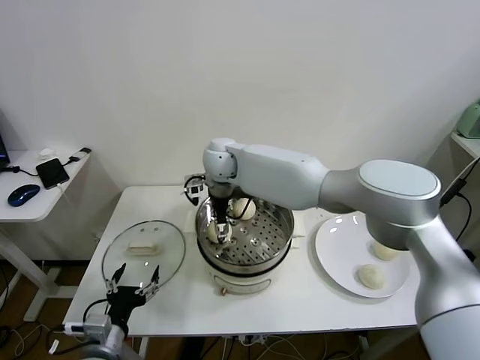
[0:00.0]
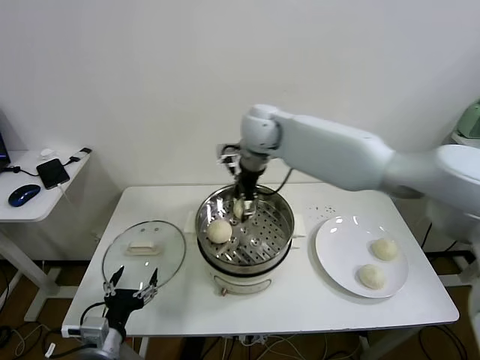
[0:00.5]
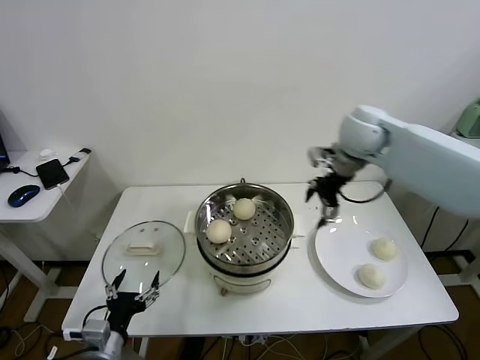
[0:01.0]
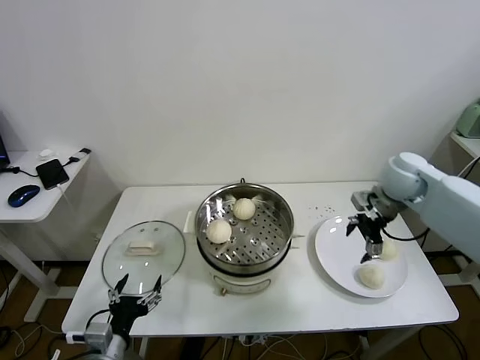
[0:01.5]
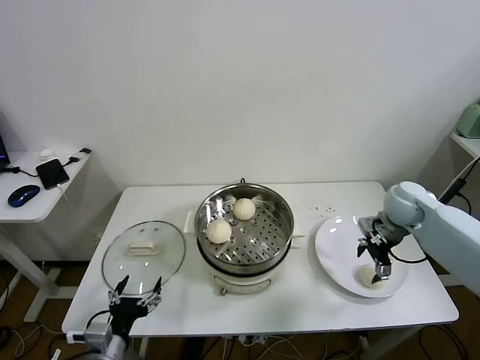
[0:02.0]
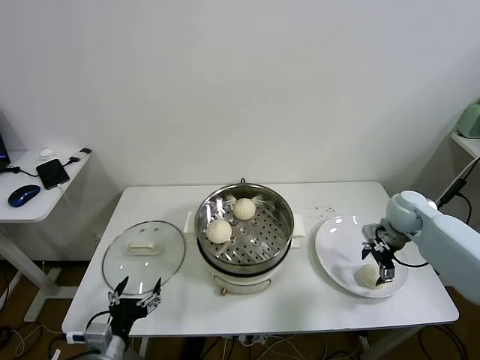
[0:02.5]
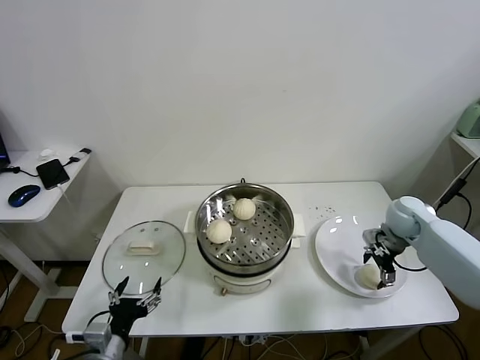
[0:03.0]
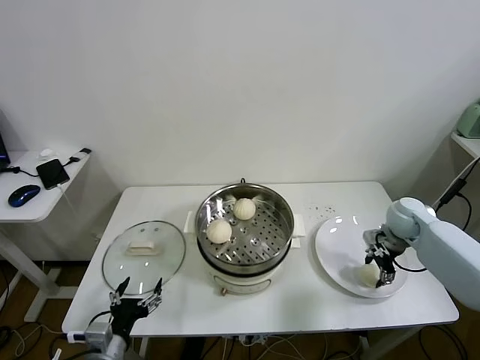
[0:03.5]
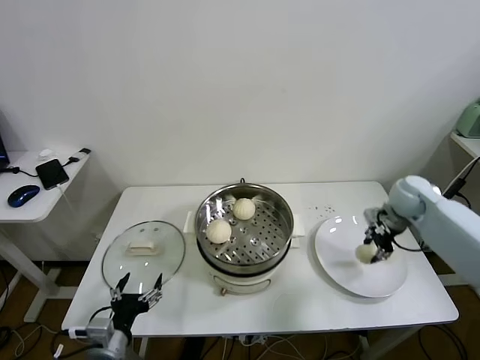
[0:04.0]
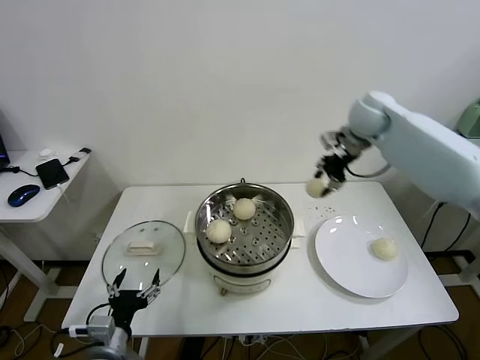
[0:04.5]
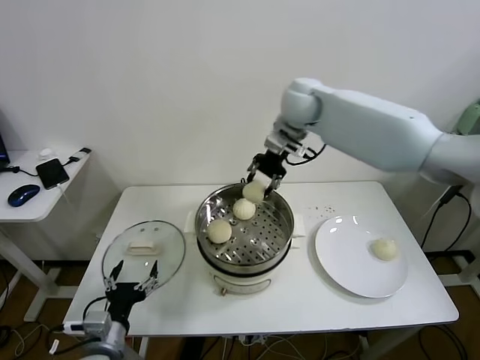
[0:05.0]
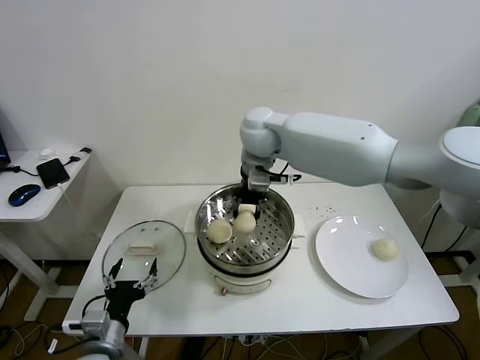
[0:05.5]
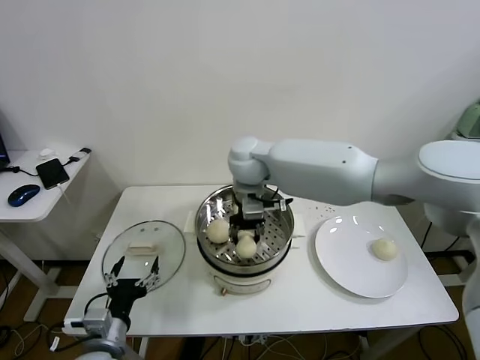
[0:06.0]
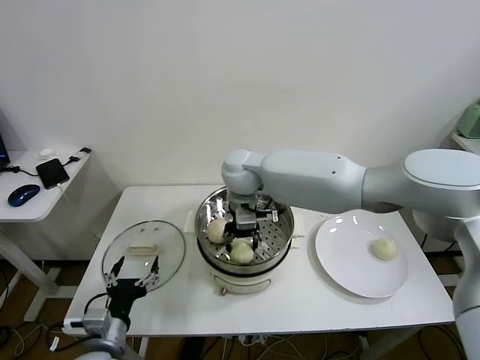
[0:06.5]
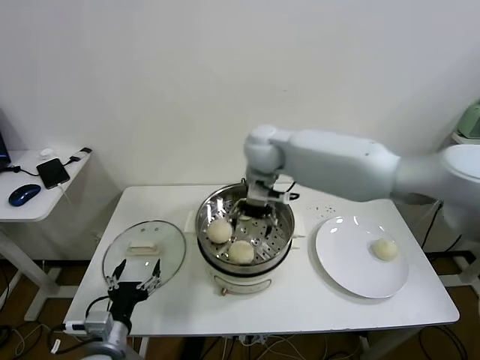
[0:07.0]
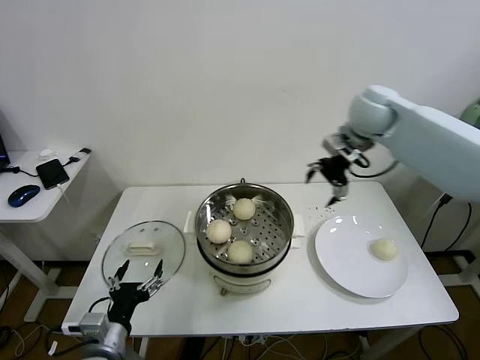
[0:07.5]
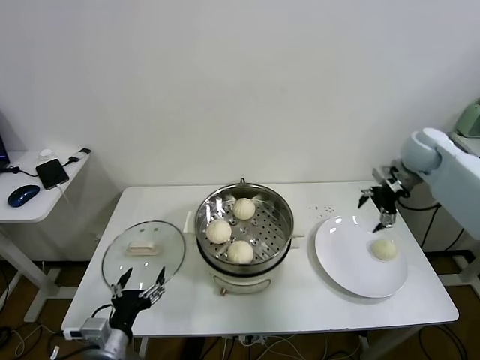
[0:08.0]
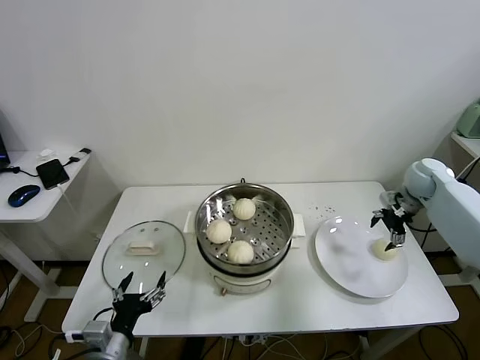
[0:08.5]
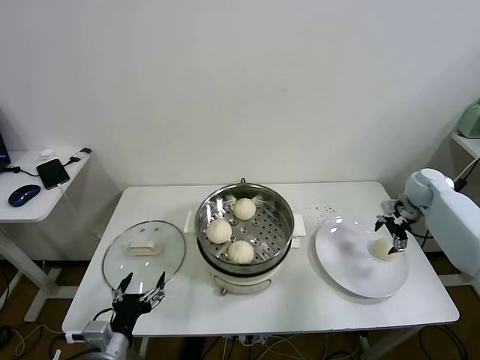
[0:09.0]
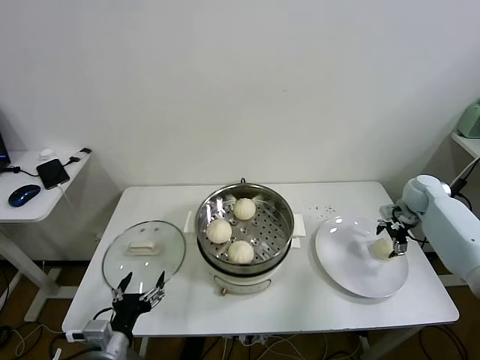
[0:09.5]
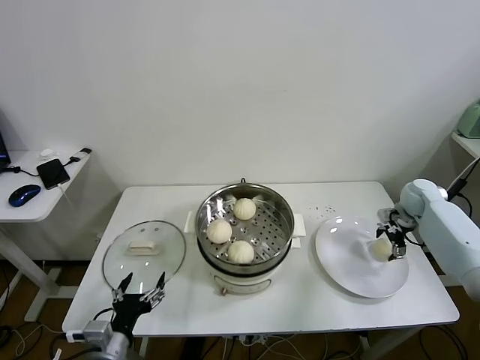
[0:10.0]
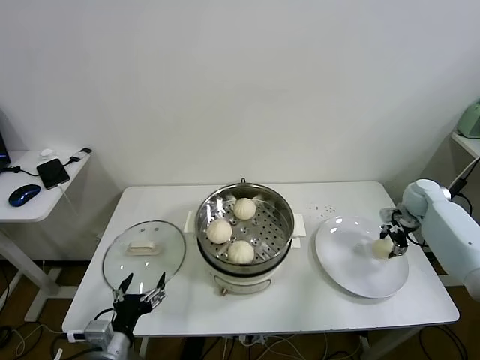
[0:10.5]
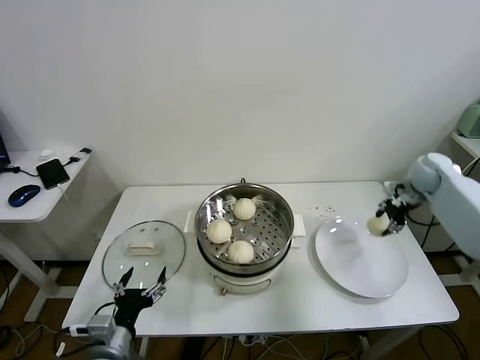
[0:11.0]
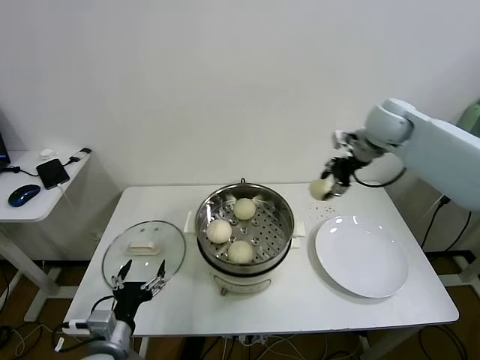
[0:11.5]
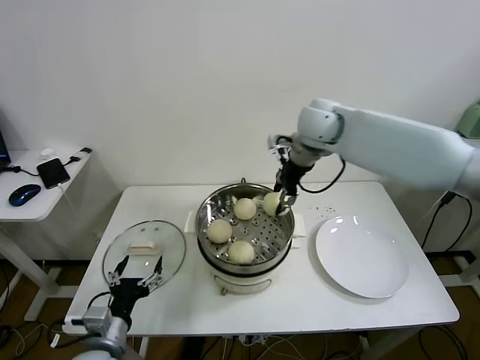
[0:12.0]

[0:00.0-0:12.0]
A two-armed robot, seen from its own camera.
Task of the whole recording: take steamed baozi put them in steamer.
Step, 0:00.5 to 0:03.0: Grasp the baozi in the plate with right gripper.
Step, 0:03.5 to 0:06.5: Place the baozi on the steamer with right gripper.
Step, 0:07.0 to 0:10.0: Grasp the baozi in the plate with right gripper.
0:00.0 to 0:02.0: The right gripper heads to the right, covering approximately 40 cm.
0:02.0 to 0:04.0: The right gripper travels downward and back again, some 5 cm each way, and closes its fingers.
0:04.0 to 0:06.0: The right gripper is displaced to the left by about 40 cm.
0:06.0 to 0:08.0: The right gripper travels to the right by approximately 40 cm, and opens its fingers.
0:08.0 to 0:10.0: The right gripper is displaced downward by some 15 cm.
0:10.0 to 0:12.0: The right gripper heads to the left and upward, covering approximately 40 cm, and closes its fingers.

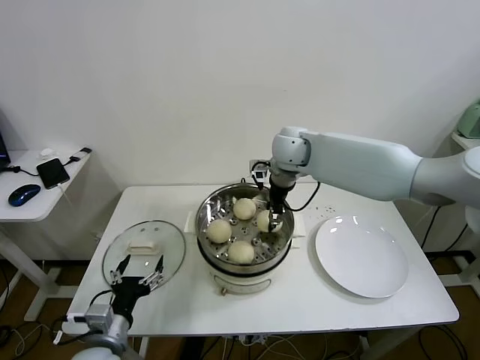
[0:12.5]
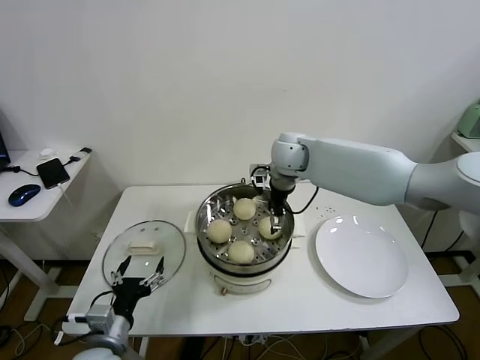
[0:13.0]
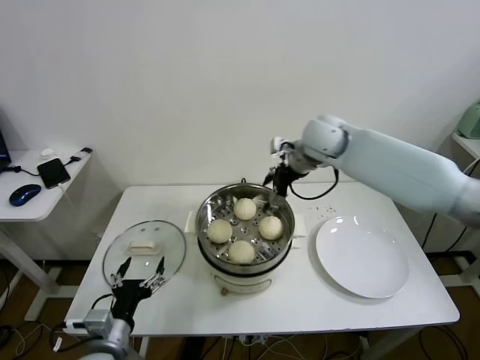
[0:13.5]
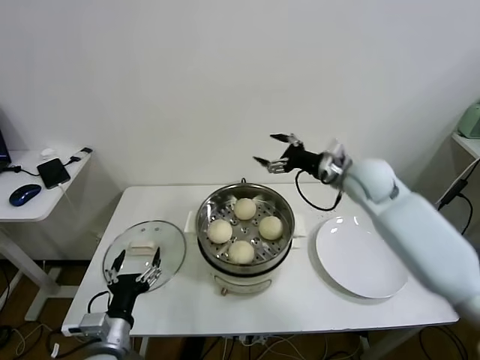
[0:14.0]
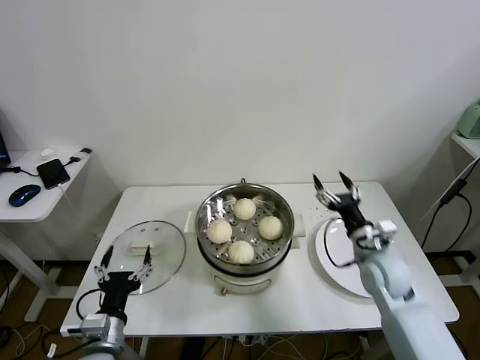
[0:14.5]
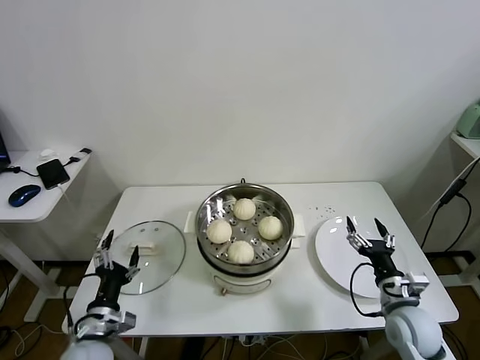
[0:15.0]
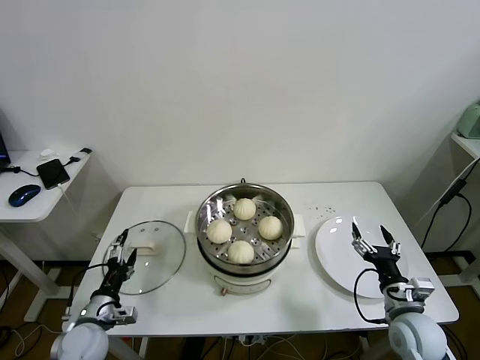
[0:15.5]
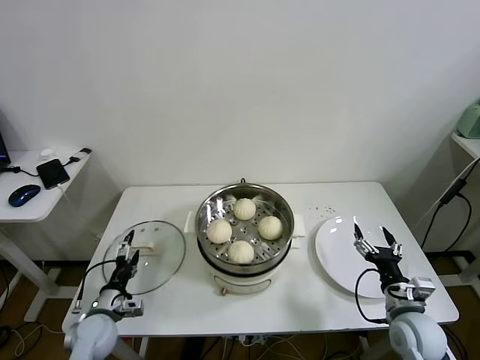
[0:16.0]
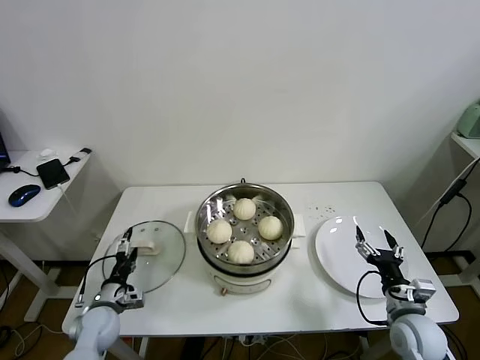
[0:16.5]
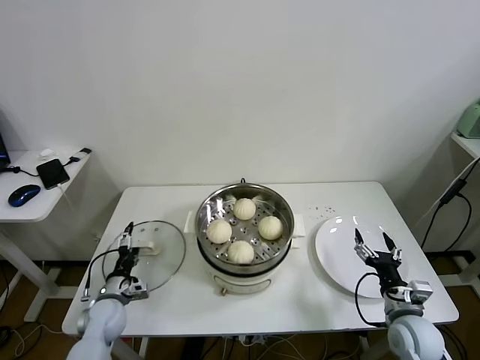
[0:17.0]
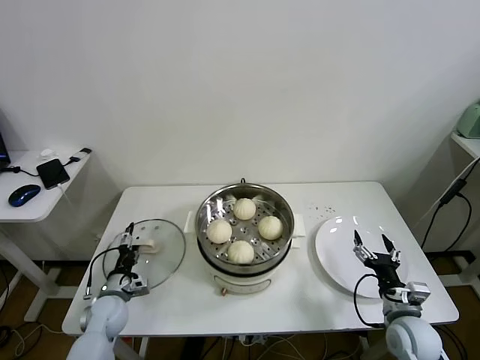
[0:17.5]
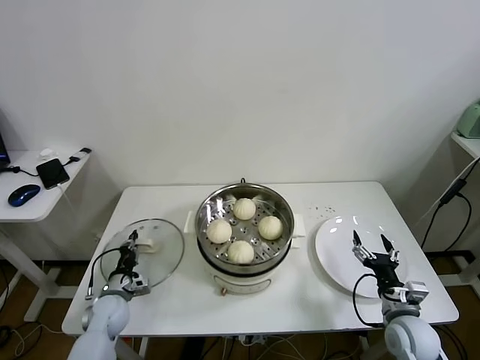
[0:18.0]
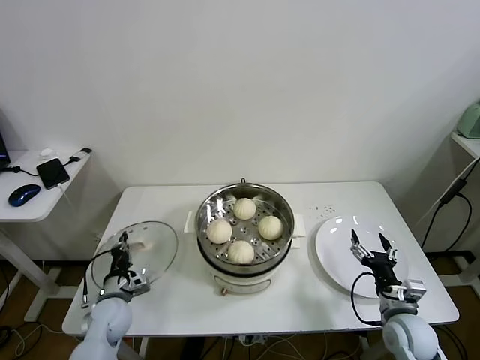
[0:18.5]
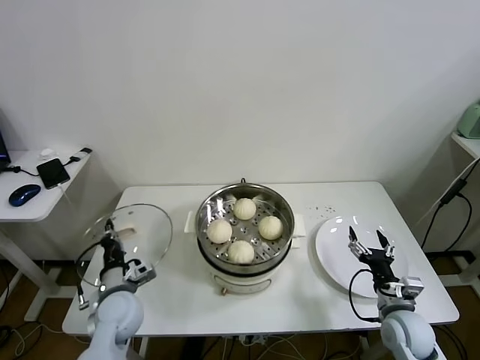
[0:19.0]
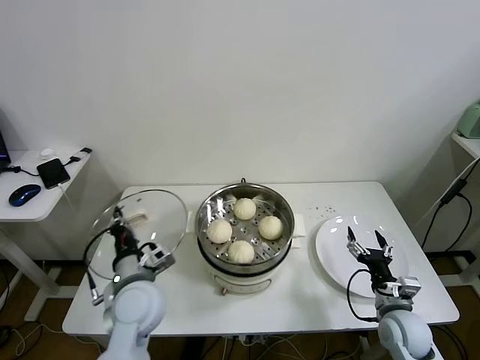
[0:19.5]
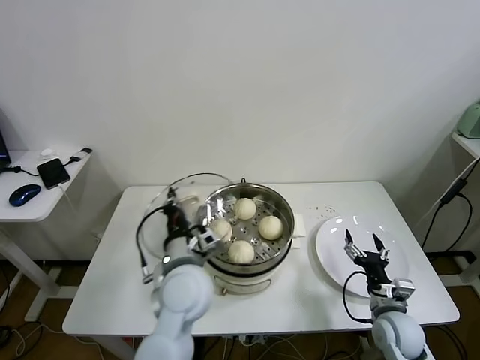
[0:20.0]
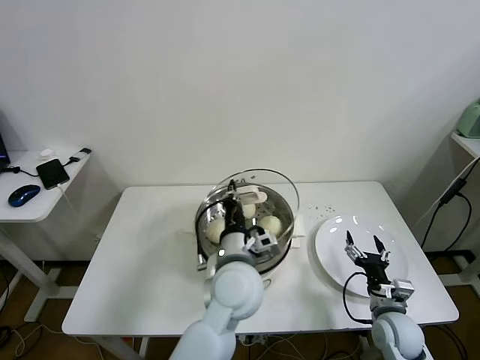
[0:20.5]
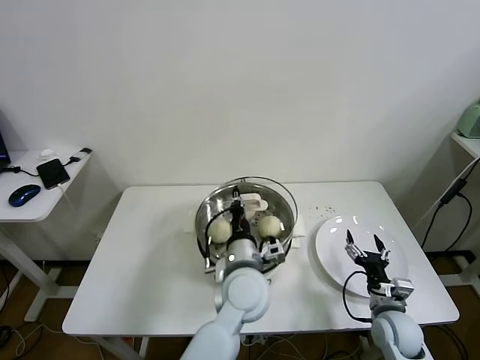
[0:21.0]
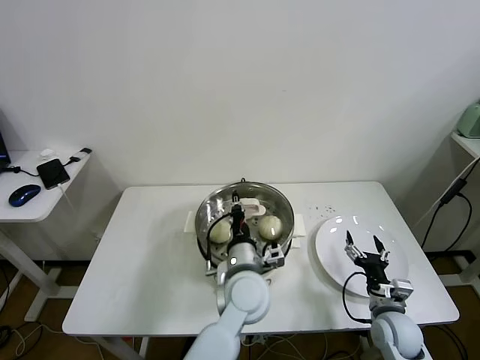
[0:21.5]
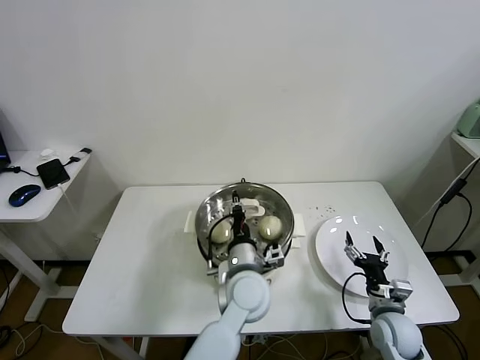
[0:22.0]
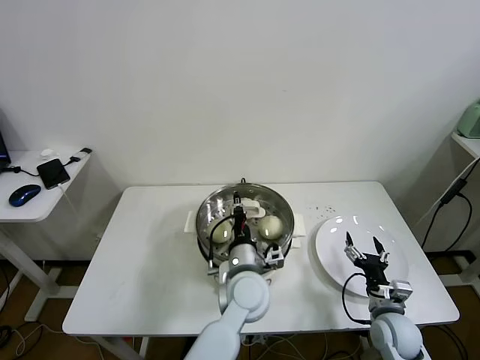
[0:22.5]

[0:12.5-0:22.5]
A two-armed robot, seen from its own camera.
Task of the whole recording: take steamed baozi put them in steamer.
Step, 0:13.0 to 0:18.0: Grasp the pot lid with left gripper.
0:12.5 to 0:14.5: The right gripper shifts approximately 35 cm downward, to the right and backward, and opens up.
0:14.5 to 0:16.5: The left gripper goes about 20 cm forward, downward and to the left, while the right gripper is displaced backward and downward by about 15 cm.
0:16.5 to 0:18.5: The left gripper closes up.
0:18.5 to 0:20.5: The left gripper travels to the right and upward by about 40 cm.
0:20.5 to 0:22.5: The left gripper travels downward by approximately 5 cm.

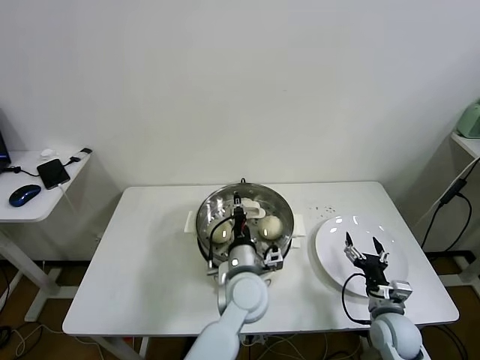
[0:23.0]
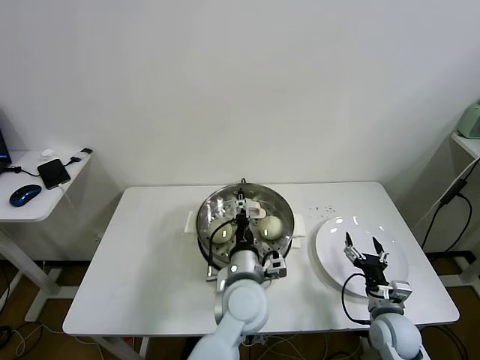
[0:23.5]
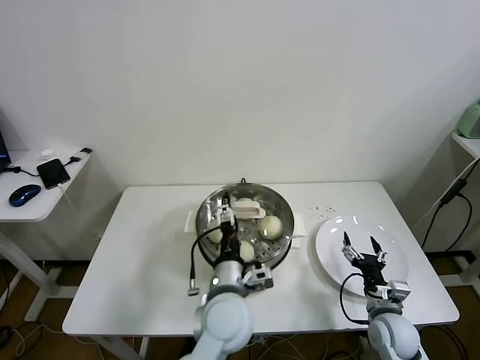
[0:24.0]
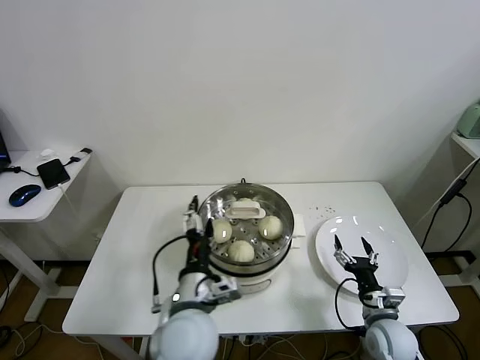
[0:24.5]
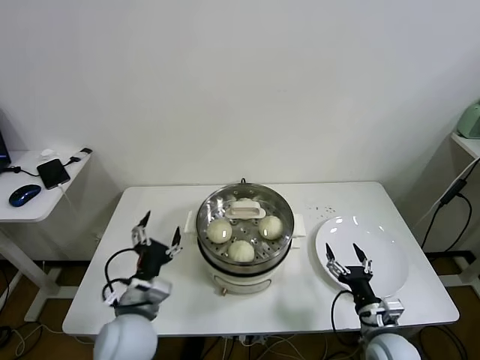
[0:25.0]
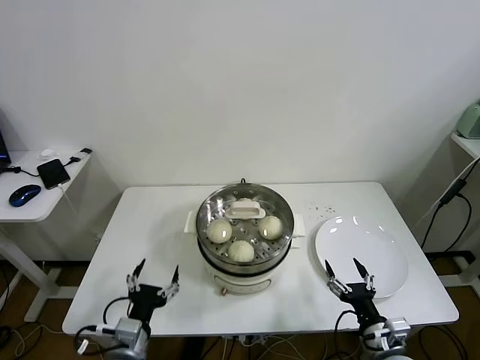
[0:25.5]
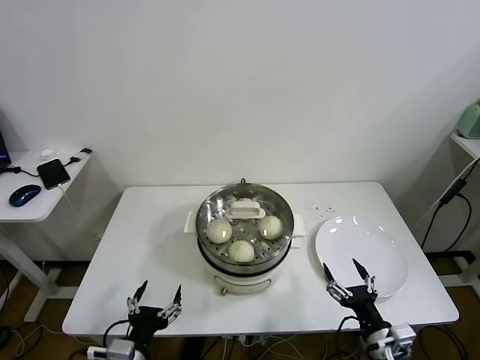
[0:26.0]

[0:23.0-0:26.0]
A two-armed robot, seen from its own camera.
Task of the whole recording: take steamed baozi put them in steamer.
0:23.0 to 0:24.5: The left gripper heads backward and to the left, covering approximately 10 cm, and opens.
0:24.5 to 0:26.0: The right gripper heads backward, covering some 10 cm. The left gripper travels to the left, backward and downward by approximately 20 cm.
